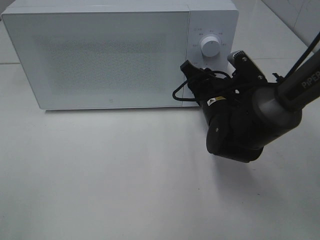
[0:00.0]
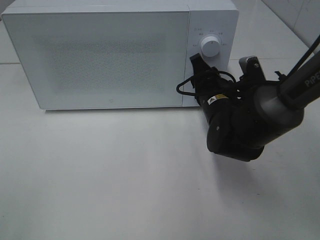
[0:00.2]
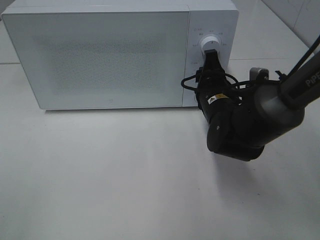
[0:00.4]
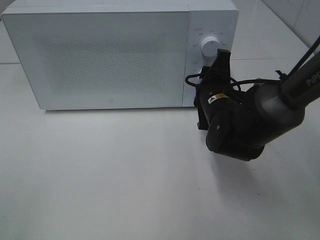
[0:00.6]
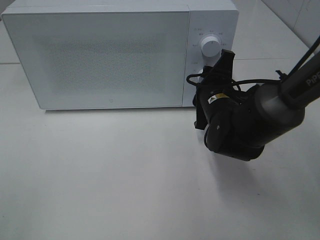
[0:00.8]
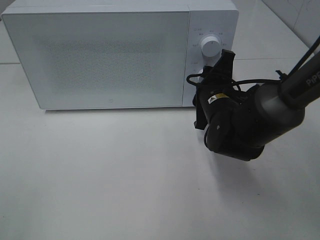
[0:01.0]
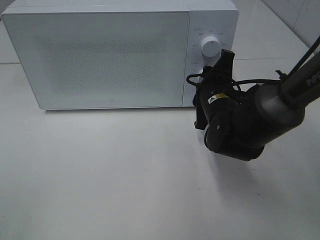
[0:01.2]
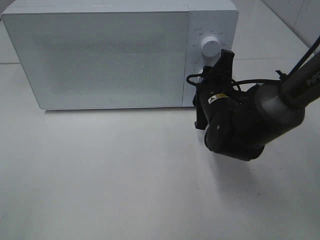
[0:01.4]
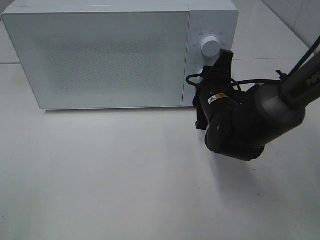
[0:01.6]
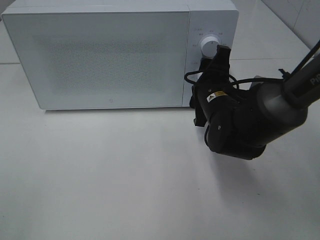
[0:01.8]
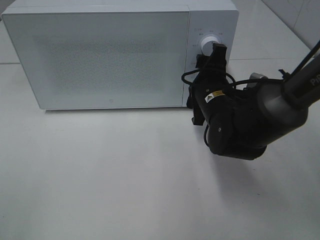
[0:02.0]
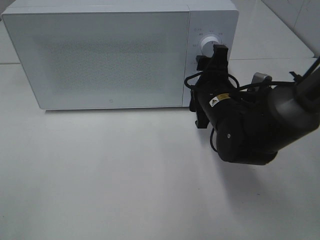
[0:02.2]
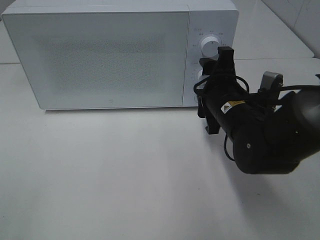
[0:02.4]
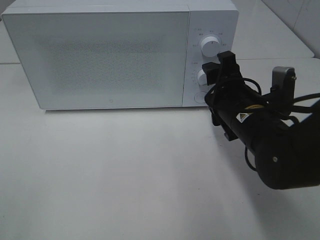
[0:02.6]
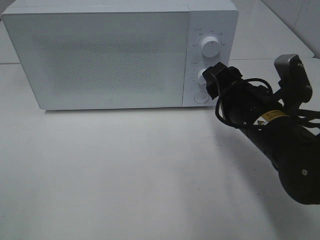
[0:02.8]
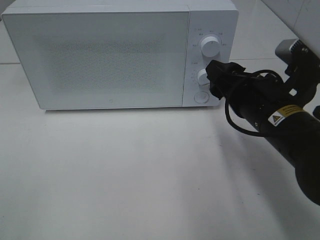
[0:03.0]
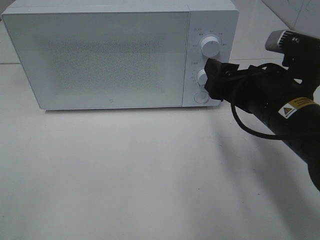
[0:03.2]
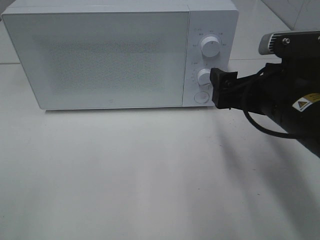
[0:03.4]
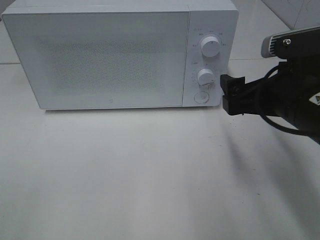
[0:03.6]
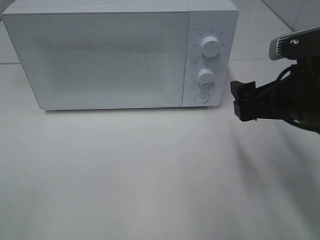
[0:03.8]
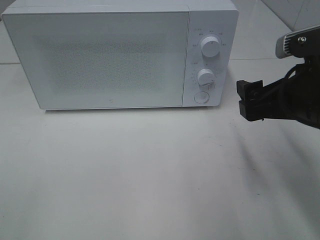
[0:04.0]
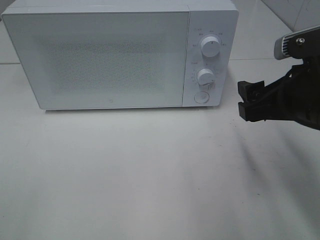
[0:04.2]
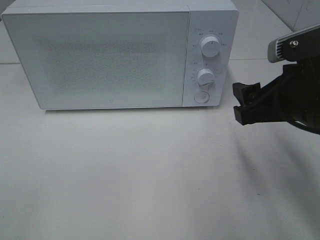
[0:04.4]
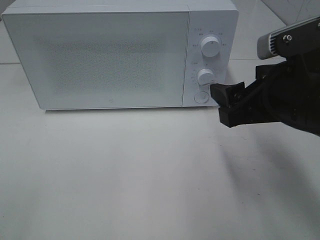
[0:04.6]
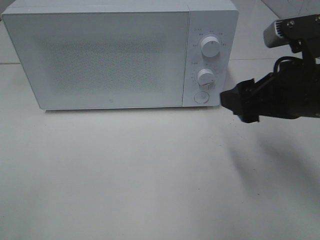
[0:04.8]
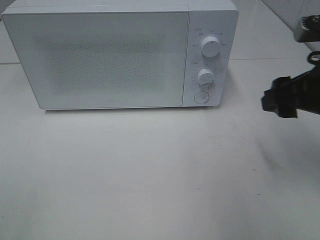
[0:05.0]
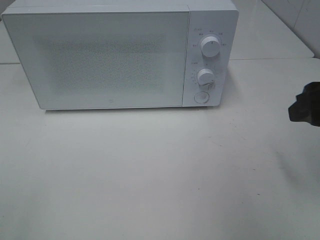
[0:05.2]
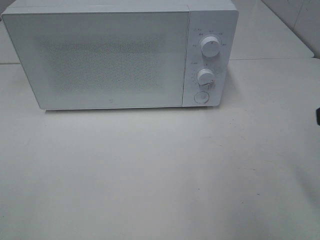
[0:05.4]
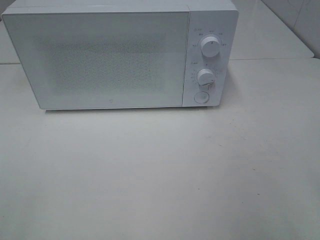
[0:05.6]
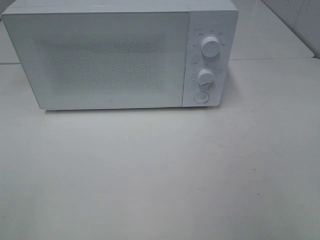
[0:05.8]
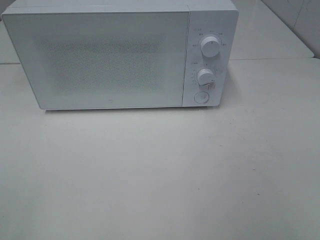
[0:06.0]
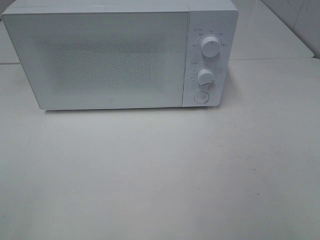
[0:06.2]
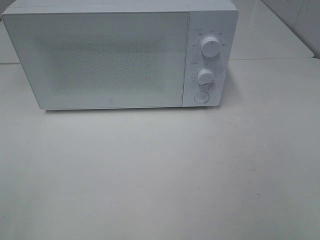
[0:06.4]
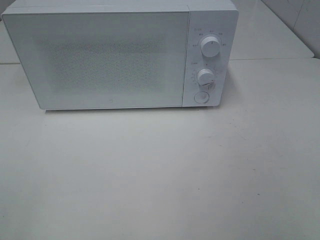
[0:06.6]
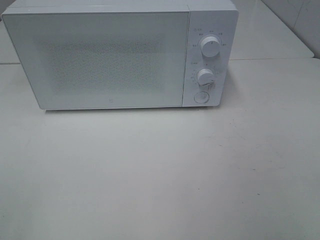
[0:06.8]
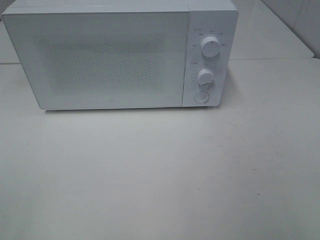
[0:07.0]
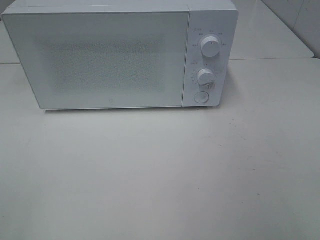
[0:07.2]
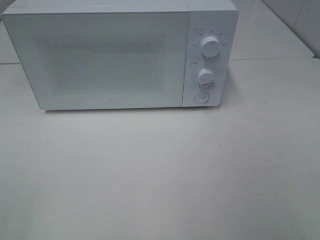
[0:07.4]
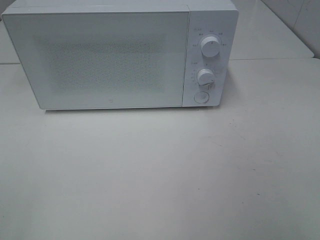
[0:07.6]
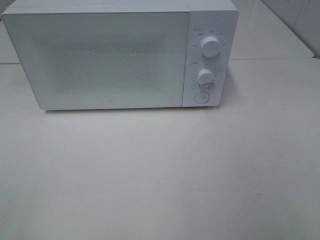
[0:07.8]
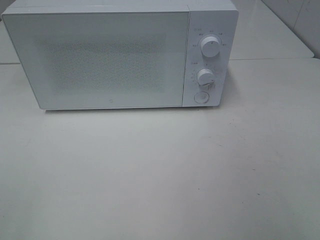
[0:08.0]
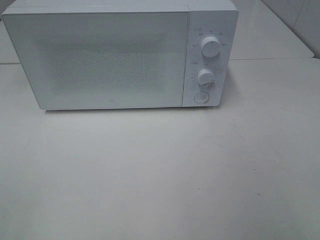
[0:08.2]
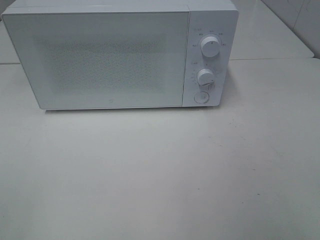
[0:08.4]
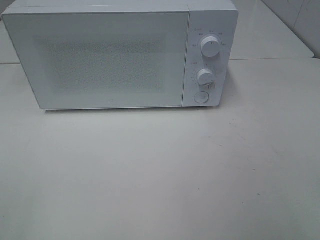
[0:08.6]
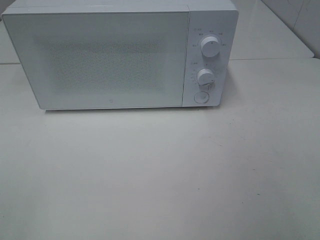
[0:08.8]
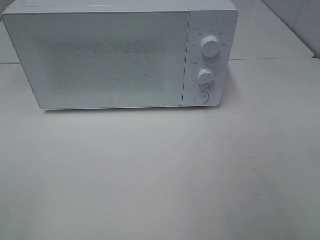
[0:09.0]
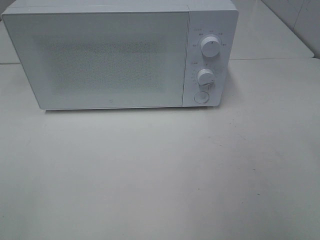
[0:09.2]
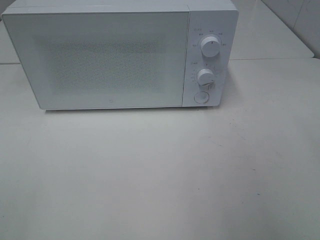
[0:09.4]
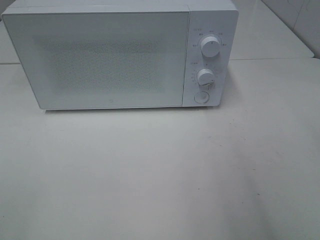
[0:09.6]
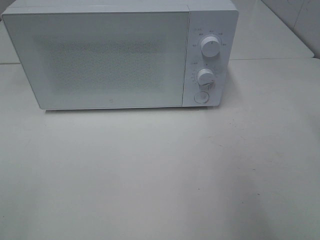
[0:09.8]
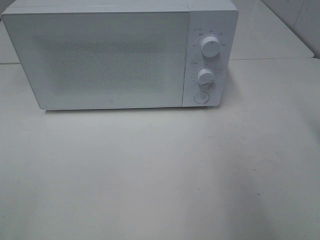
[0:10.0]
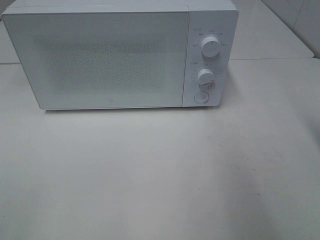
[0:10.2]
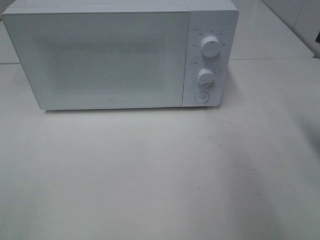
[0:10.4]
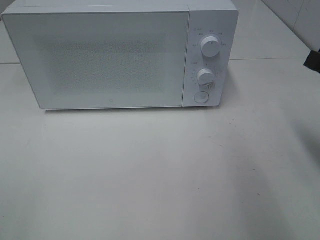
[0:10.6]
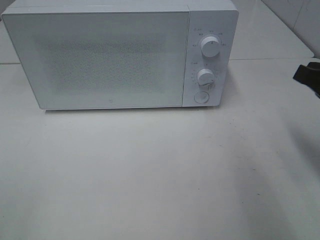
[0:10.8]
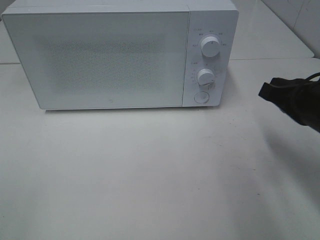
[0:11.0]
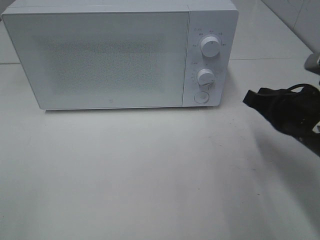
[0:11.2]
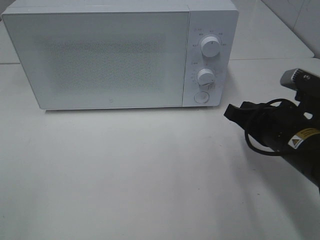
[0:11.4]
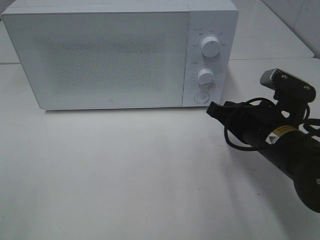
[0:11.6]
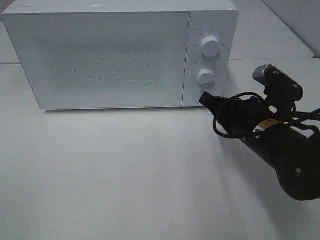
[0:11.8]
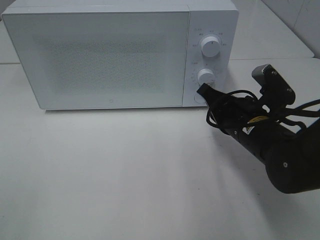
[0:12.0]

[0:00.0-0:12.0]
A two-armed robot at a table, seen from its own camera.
Task of the whole recording: Heat Sandwich.
Step, 0:00.0 to 0:02.2: Right hand: twist timer button.
0:01.6 to 0:03.0: The right gripper travels backward and upward by roughly 10 cm.
0:03.0 to 0:04.4: The right gripper shifts by about 5 cm.
0:04.4 to 0:06.0: The right gripper goes about 20 cm backward, to the right and upward.
0:10.4 to 0:12.0: The right gripper travels downward and to the left by roughly 20 cm.

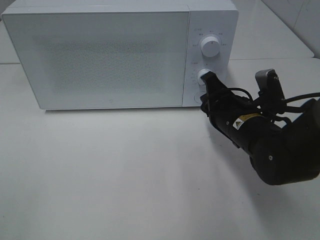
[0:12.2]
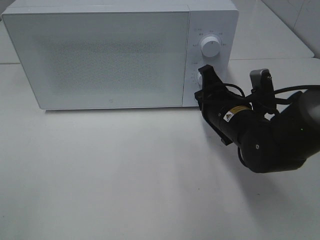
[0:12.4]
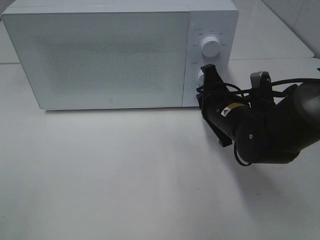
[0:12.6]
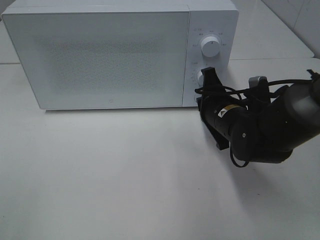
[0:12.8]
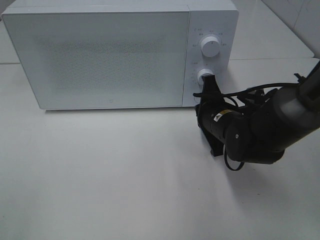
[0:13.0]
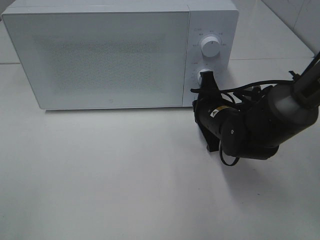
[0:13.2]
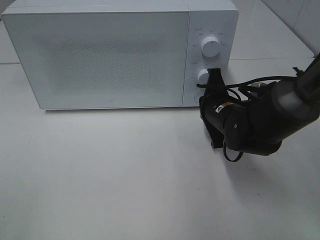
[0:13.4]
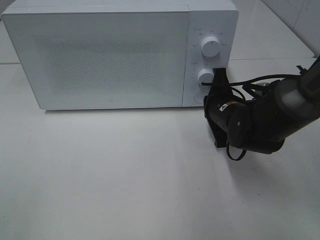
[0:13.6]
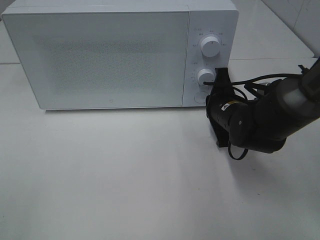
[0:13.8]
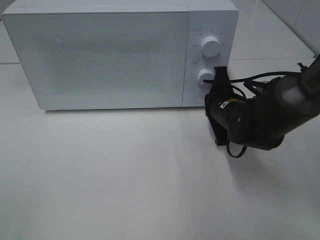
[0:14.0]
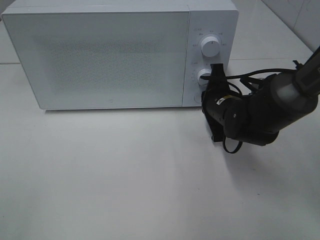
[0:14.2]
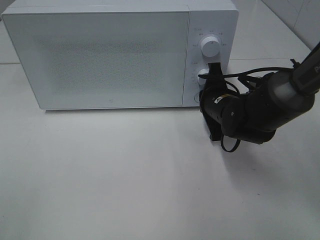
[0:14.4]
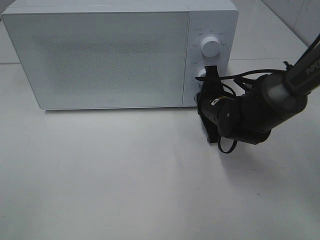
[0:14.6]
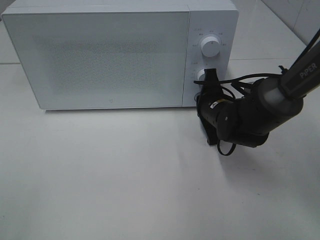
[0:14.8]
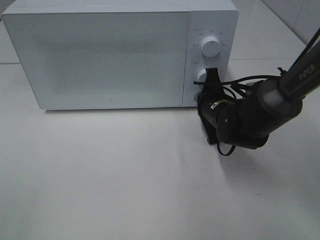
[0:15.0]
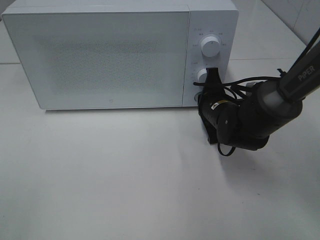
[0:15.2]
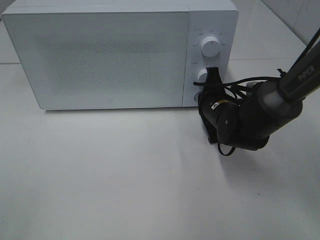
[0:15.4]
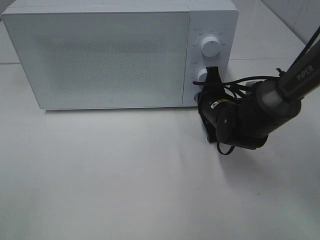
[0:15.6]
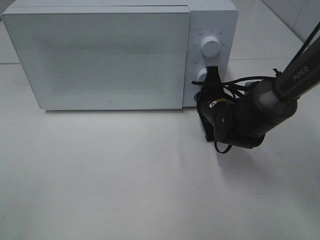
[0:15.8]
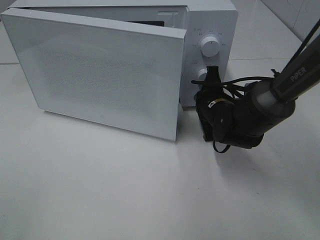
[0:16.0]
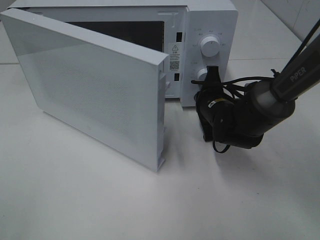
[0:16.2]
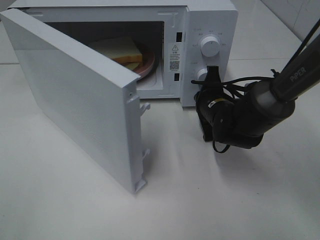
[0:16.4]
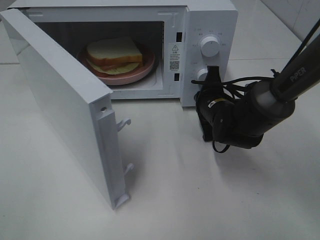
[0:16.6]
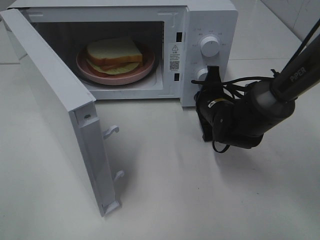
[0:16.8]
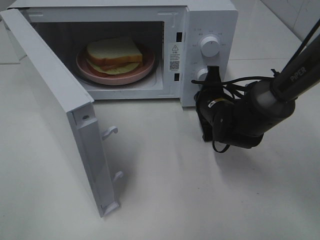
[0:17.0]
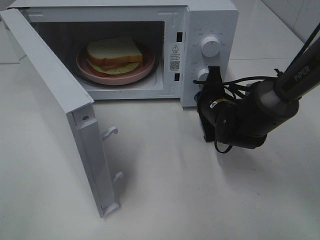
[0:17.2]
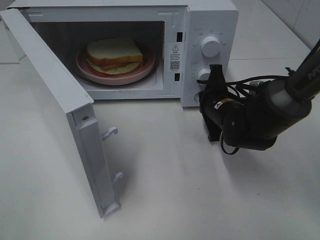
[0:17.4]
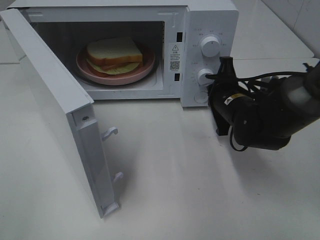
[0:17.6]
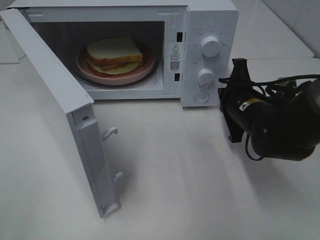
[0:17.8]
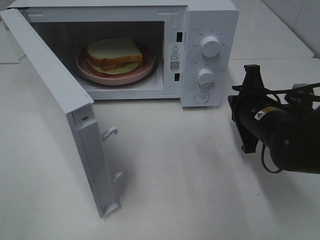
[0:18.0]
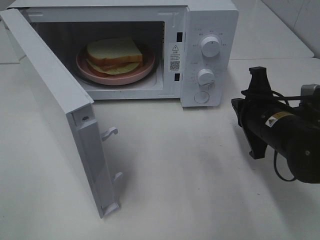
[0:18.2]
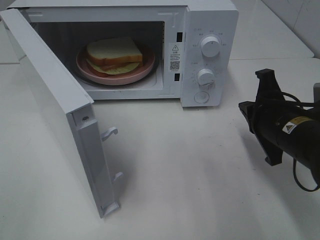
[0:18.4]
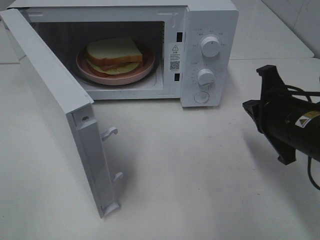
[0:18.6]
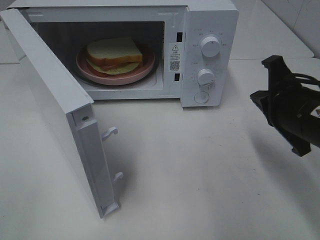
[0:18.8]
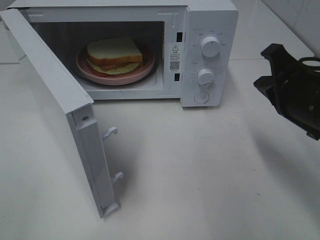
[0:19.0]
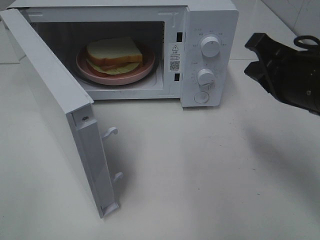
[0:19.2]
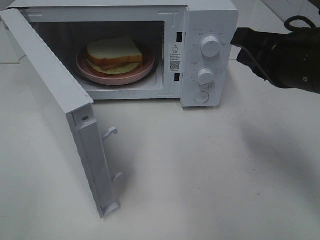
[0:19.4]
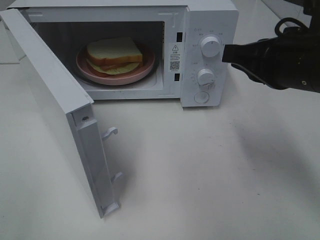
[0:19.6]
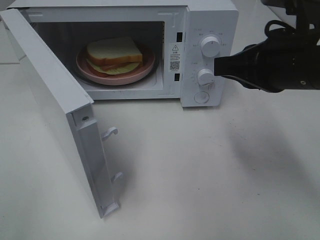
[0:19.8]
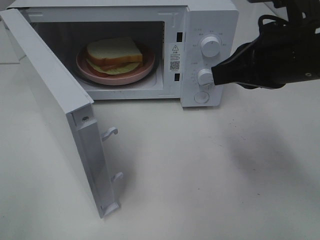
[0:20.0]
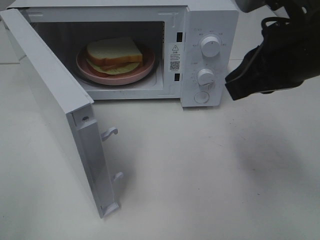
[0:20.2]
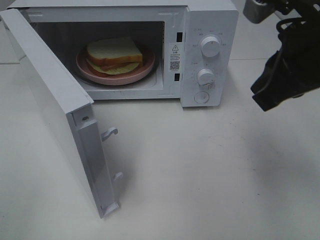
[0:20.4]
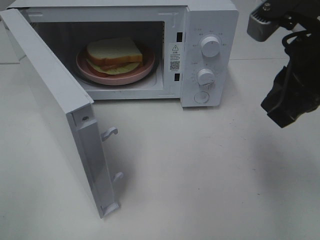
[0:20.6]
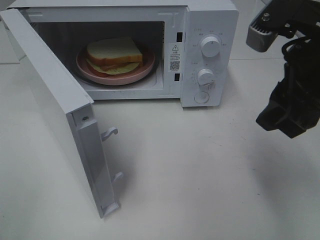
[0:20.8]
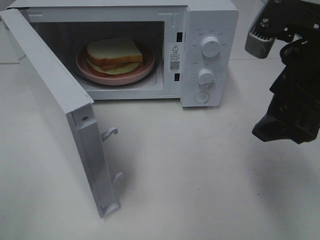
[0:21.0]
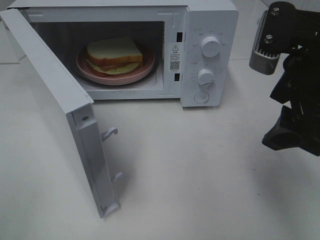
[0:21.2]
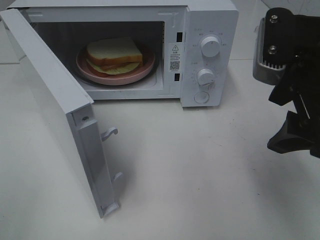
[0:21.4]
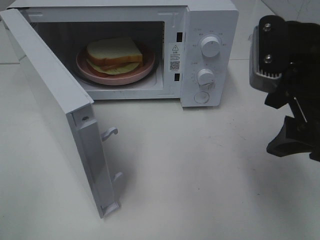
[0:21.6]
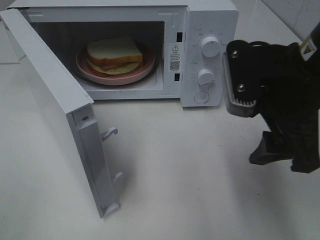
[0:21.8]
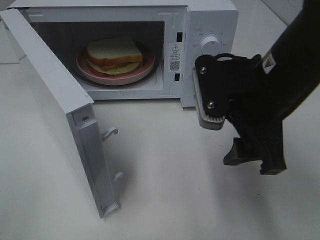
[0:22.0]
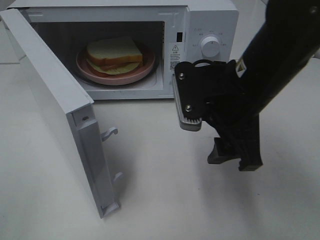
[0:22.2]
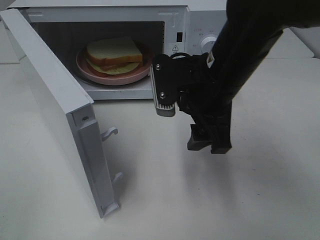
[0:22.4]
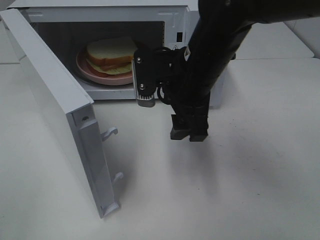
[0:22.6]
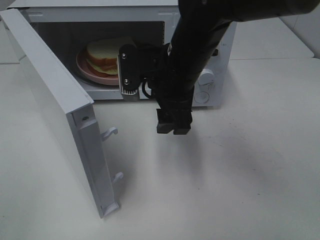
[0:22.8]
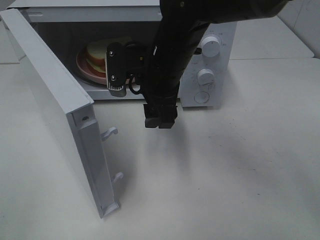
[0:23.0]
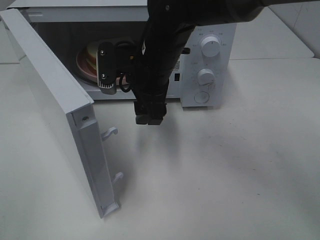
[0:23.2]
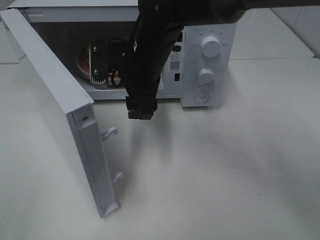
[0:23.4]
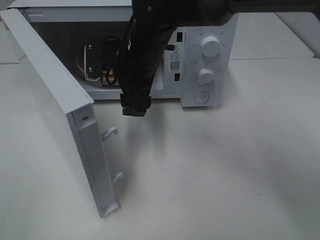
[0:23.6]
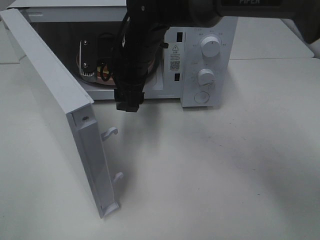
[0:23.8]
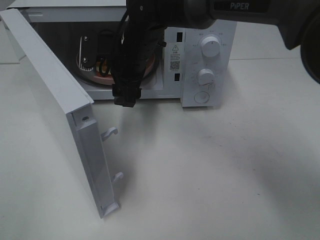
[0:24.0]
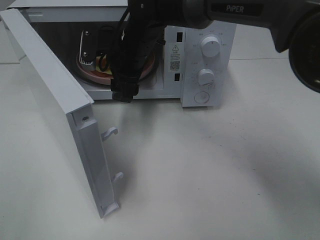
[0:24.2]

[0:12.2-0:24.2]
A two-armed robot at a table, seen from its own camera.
Task of the whole recording: Heat Sandwich.
Step, 0:12.2 to 0:17.4: Right hand: press the switch.
0:12.2 to 0:13.8: The right gripper is displaced forward by some 5 cm.
0:13.8 to 0:15.2: The grippers make only small movements.
0:16.6 to 0:18.2: The right gripper travels backward, to the right and upward by approximately 15 cm.
0:18.2 to 0:19.8: The right gripper travels upward by approximately 15 cm.
0:19.8 to 0:21.2: The right gripper opens its fingers.
0:21.2 to 0:22.6: The right gripper heads to the left, forward and downward, covering roughly 15 cm.
0:22.6 to 0:24.2: The right gripper travels forward and to the left by approximately 15 cm.
